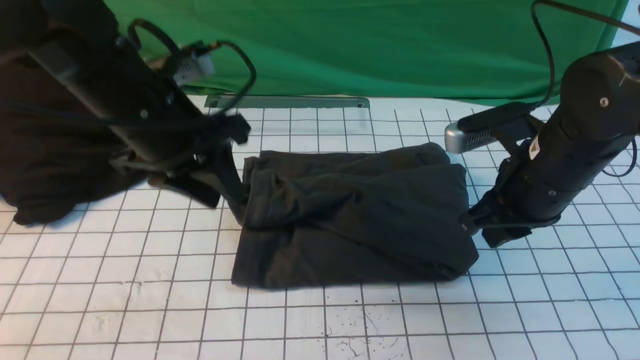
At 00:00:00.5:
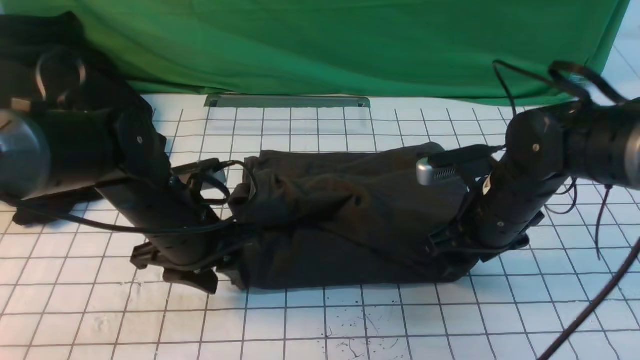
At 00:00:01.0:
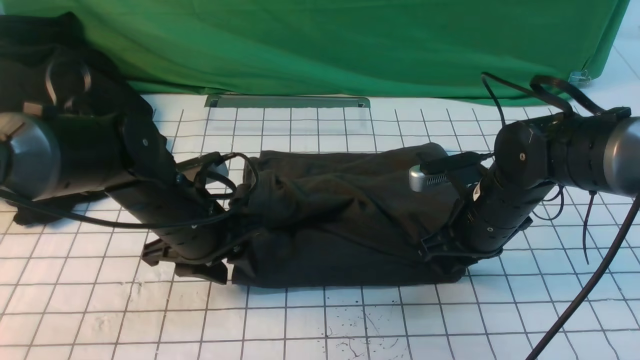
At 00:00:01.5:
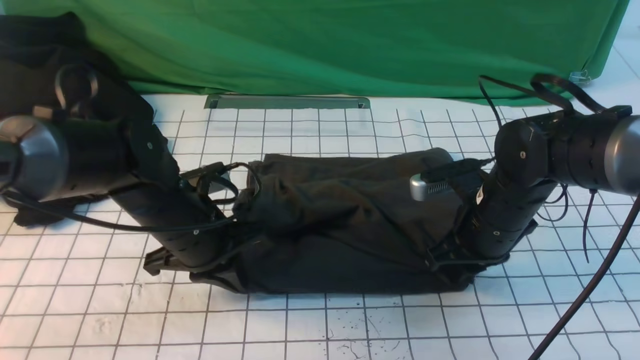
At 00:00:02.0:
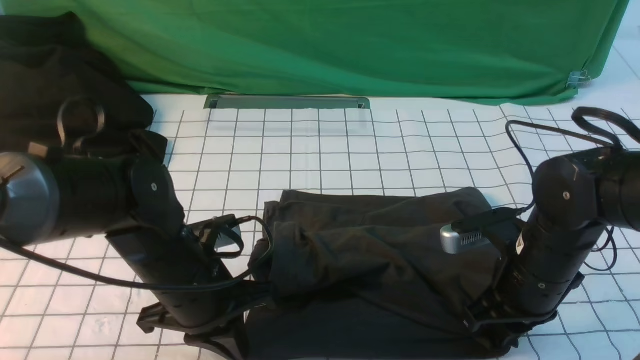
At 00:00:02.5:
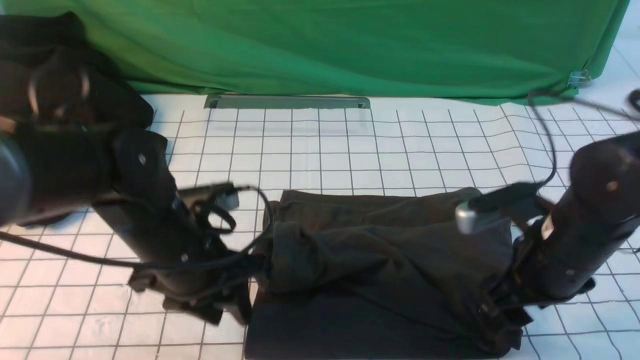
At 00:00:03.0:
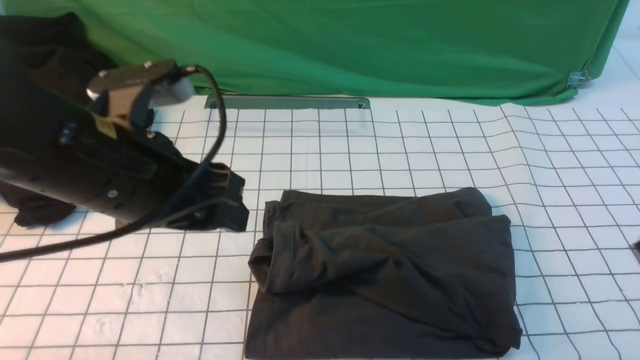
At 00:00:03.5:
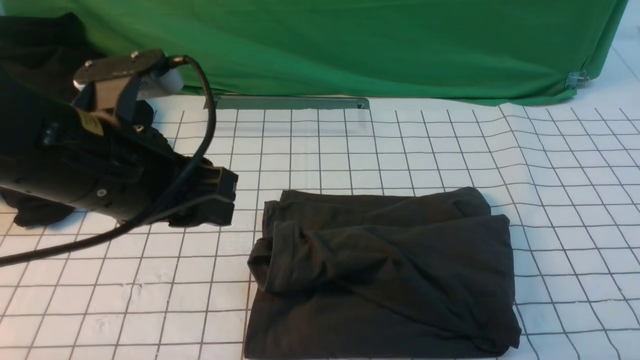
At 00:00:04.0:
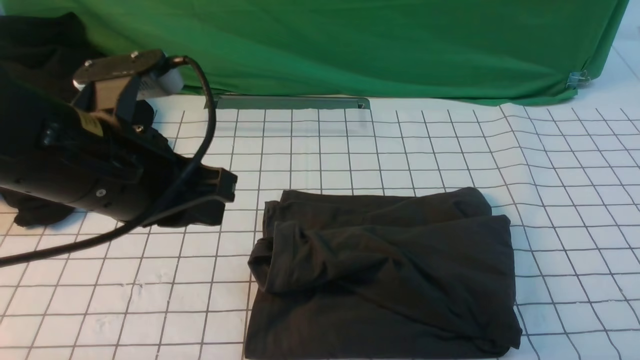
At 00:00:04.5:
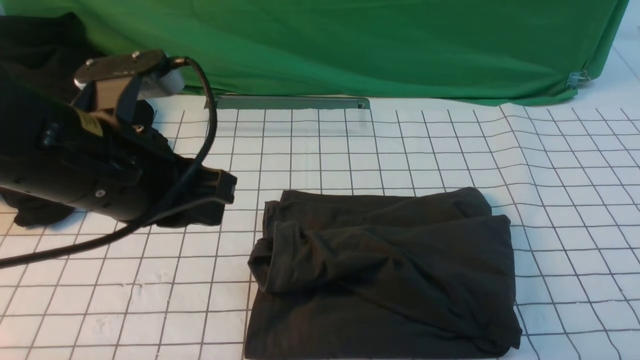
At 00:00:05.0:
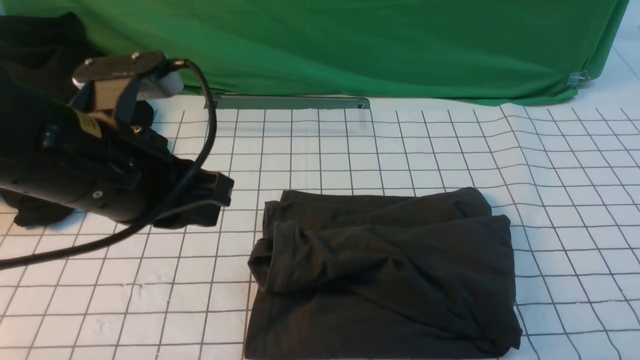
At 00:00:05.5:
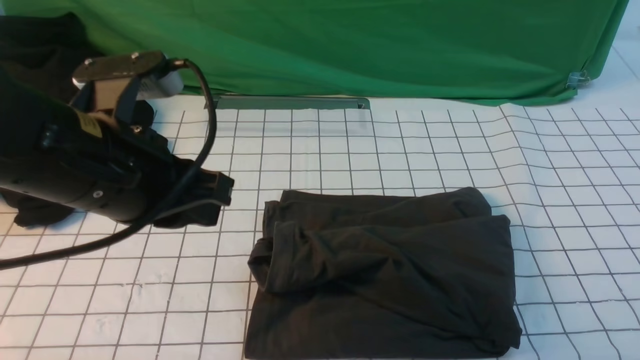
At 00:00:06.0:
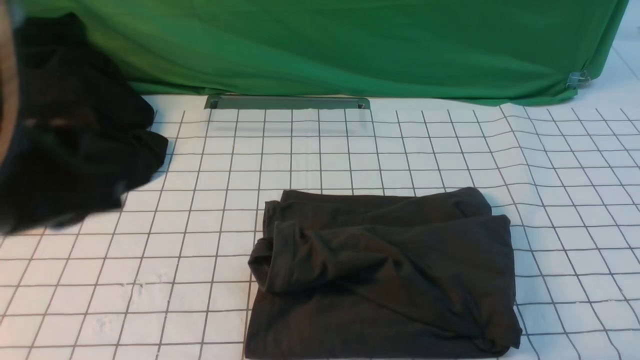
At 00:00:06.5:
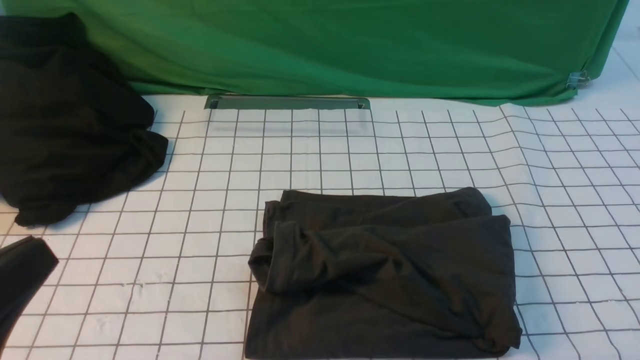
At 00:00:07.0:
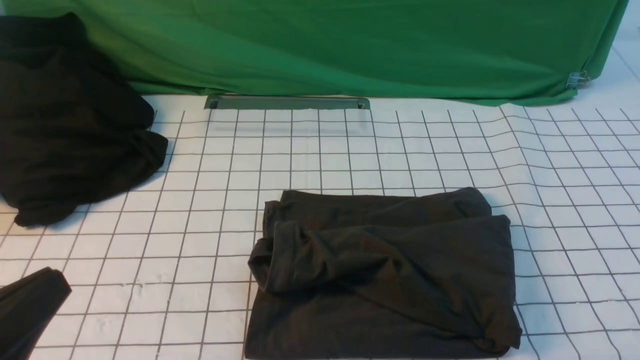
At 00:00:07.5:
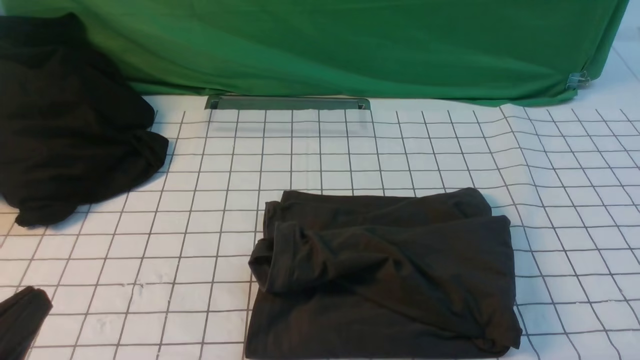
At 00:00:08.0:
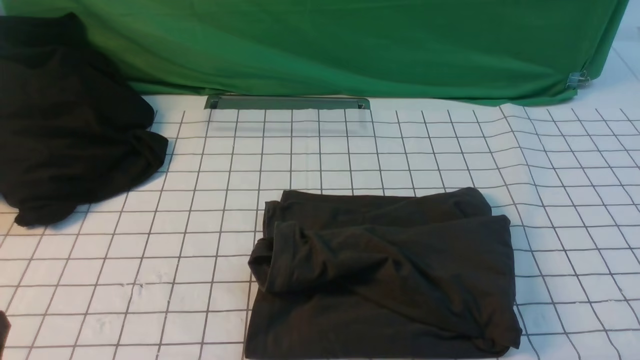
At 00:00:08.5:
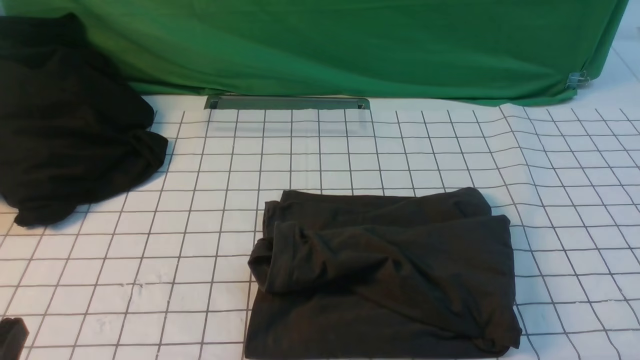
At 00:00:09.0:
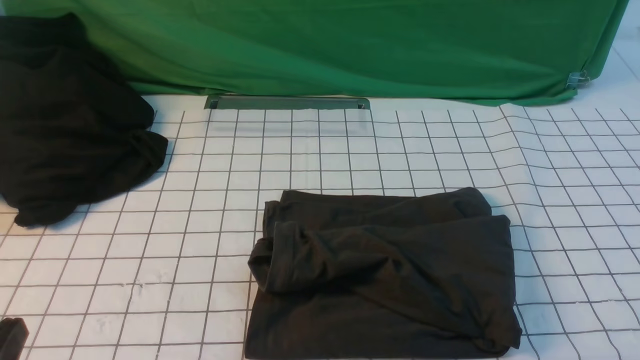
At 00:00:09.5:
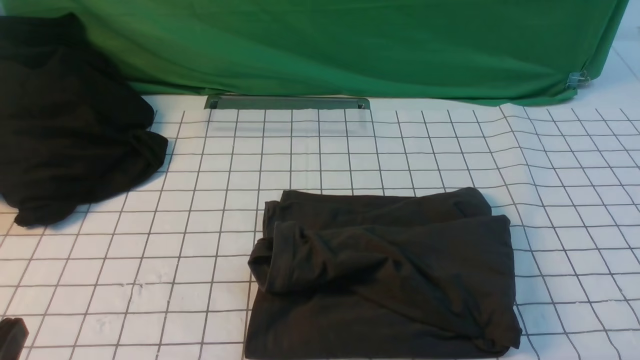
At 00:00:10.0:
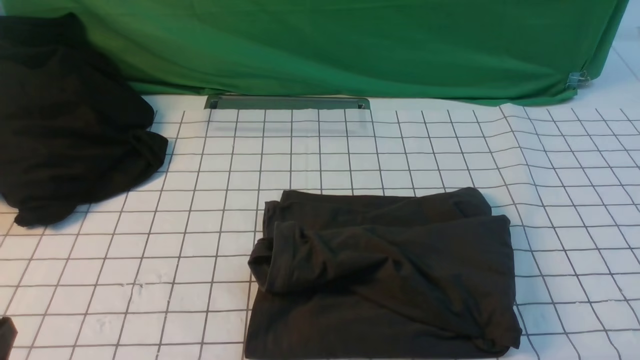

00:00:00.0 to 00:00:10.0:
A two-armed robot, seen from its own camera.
00:00:00.0 to 00:00:02.0: The left gripper moves downward and backward, approximately 15 cm, and closes up, while the right gripper goes approximately 5 cm downward, and opens, then closes again.
00:00:02.0 to 00:00:04.0: The left gripper heads upward, covering approximately 15 cm, and opens, then closes once more. The right gripper heads backward, upward and to the right, covering about 35 cm, and opens and closes again.
00:00:04.0 to 00:00:06.0: The left gripper is displaced backward by about 10 cm.
00:00:06.0 to 00:00:08.0: The left gripper heads downward and backward, covering roughly 20 cm.
00:00:08.0 to 00:00:10.0: The two grippers keep their place.
